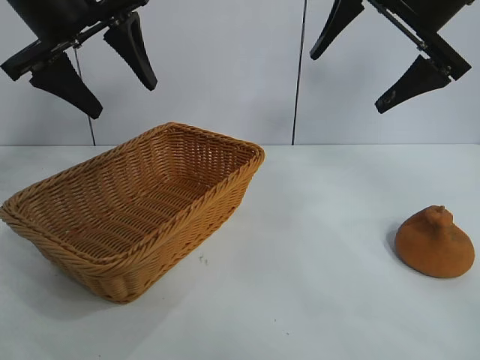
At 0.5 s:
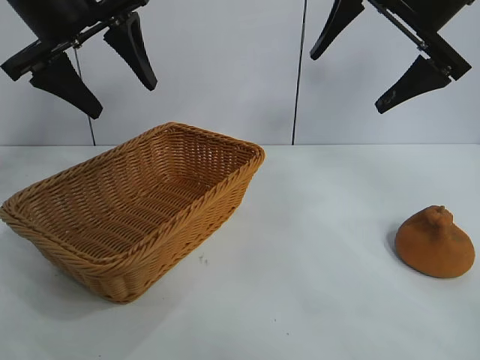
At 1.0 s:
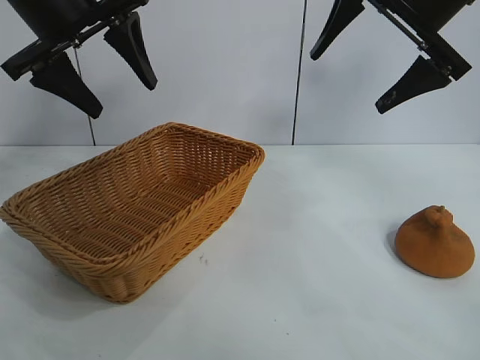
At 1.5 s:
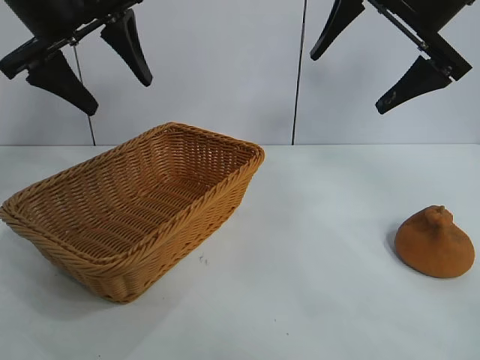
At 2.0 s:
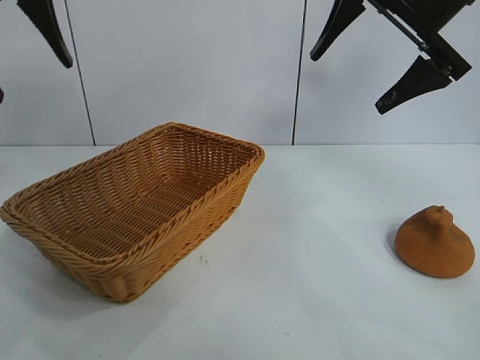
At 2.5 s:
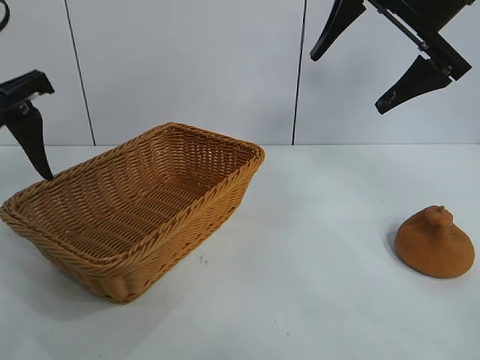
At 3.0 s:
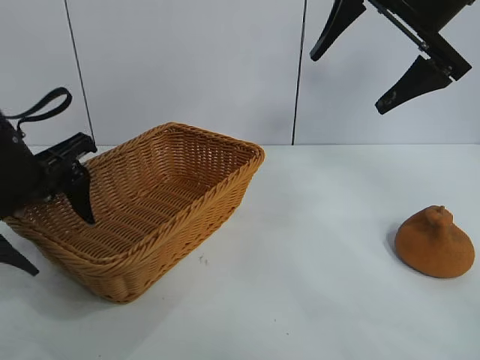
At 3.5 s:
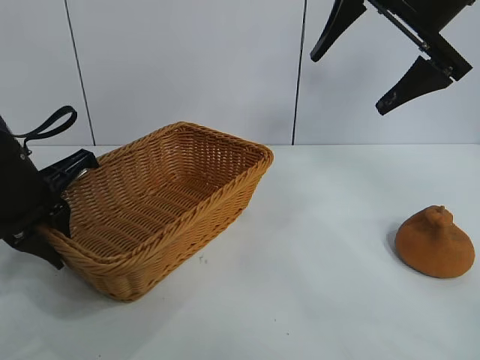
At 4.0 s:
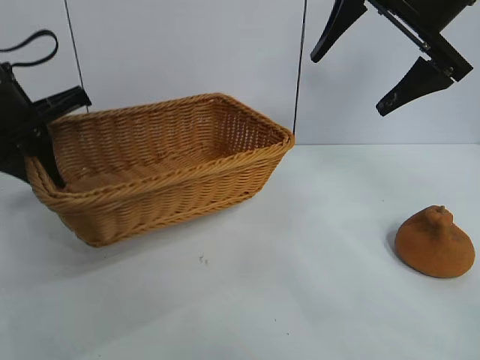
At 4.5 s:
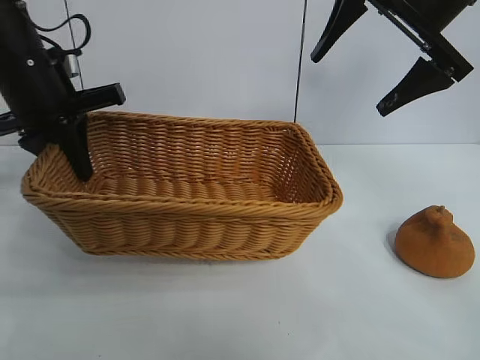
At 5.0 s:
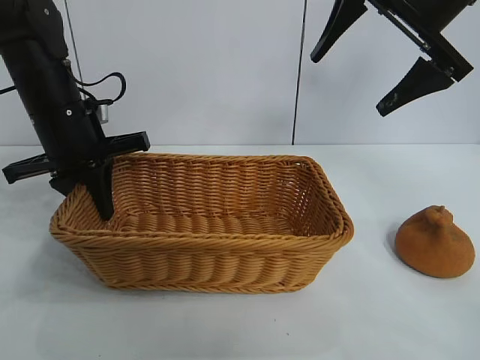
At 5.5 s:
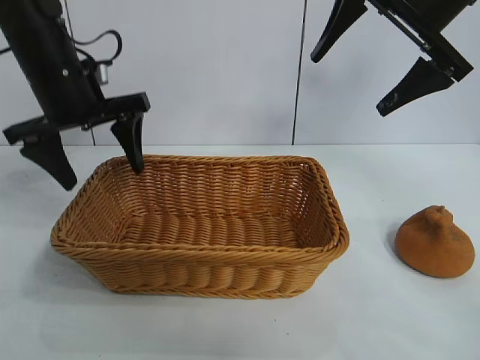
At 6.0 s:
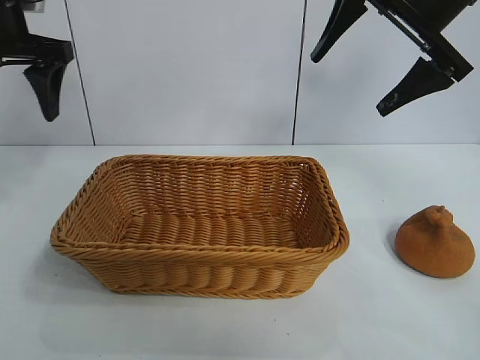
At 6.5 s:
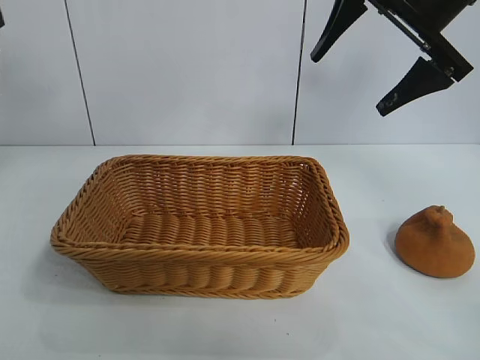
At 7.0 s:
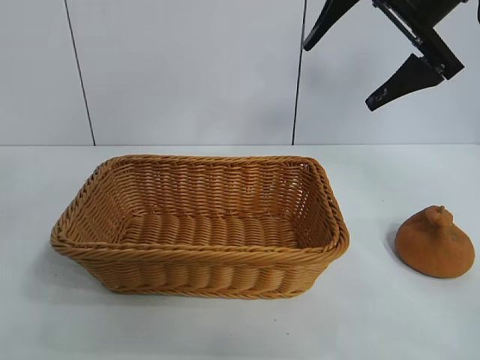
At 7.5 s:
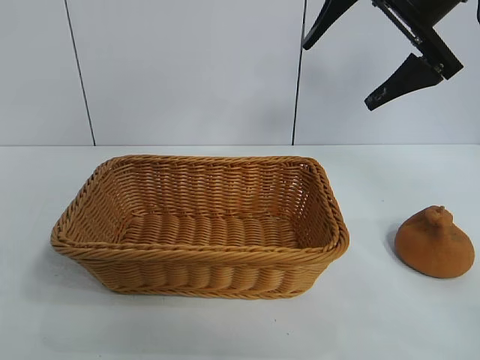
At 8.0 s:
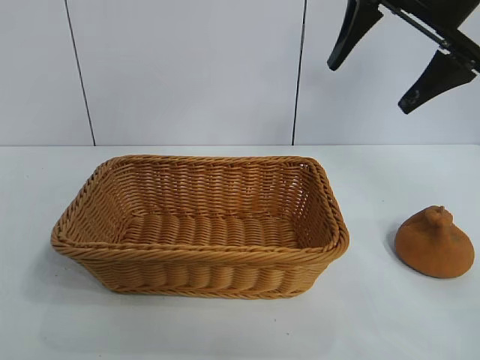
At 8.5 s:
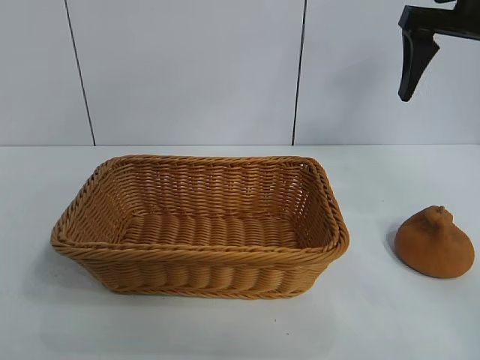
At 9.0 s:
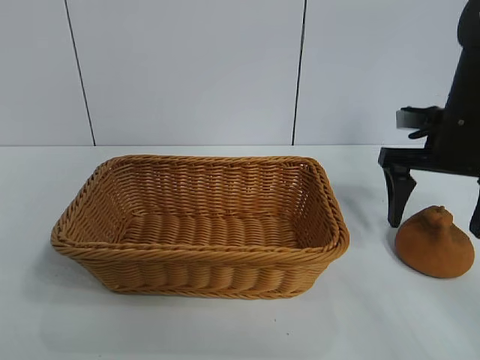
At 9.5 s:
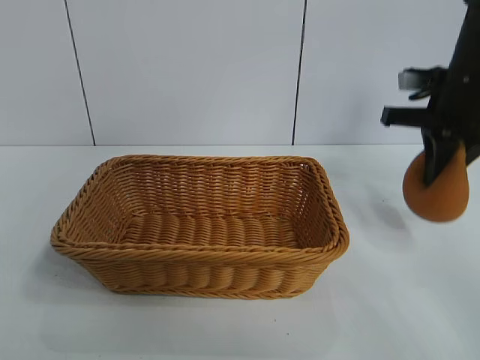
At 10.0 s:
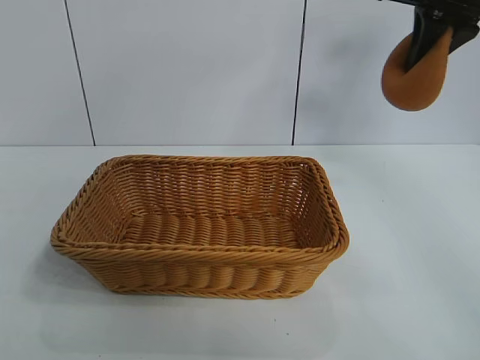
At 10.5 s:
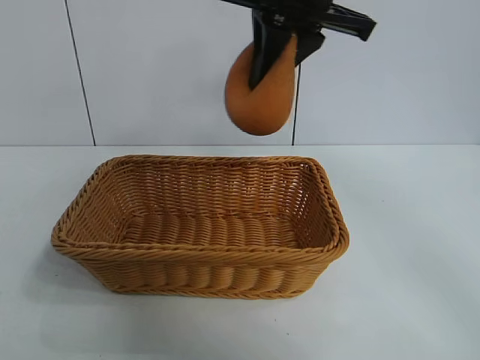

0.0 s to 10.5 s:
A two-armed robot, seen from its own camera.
Task of the whole recording: pick up the orange and put it into the basket.
Step, 1.0 to 3.0 s: Grasp the basket with left gripper.
Step, 4.0 to 5.0 s: Place the basket in the center of view with left gripper.
Step, 5.5 to 9.0 s: Grasp the orange with right gripper.

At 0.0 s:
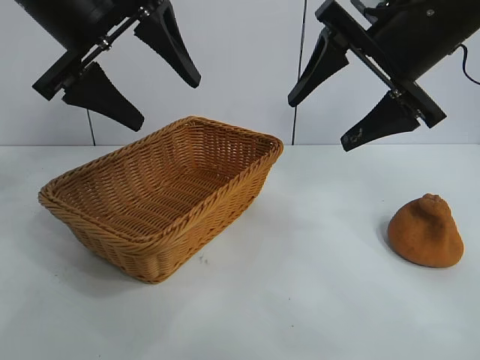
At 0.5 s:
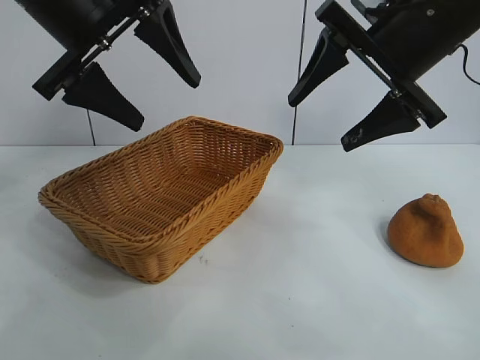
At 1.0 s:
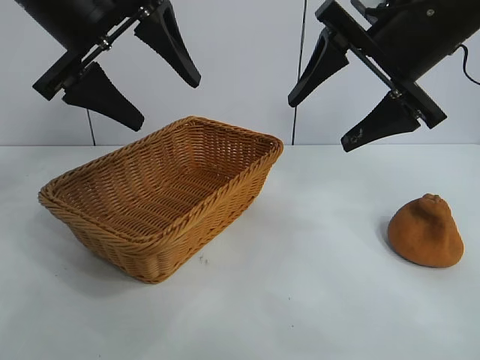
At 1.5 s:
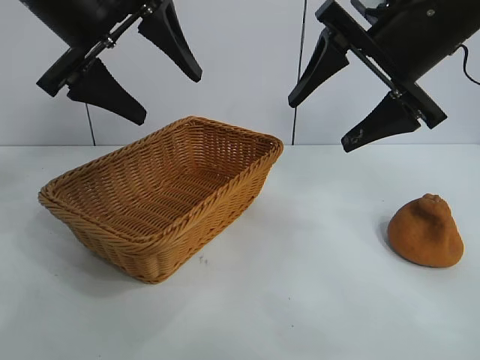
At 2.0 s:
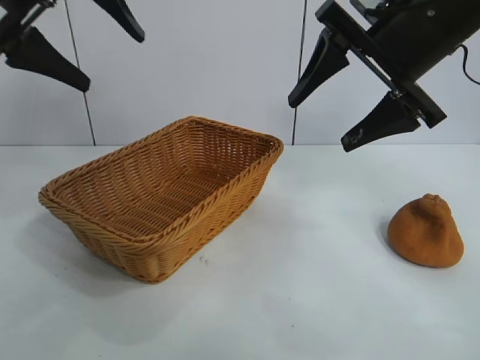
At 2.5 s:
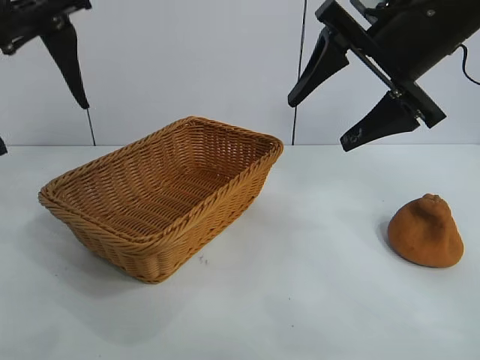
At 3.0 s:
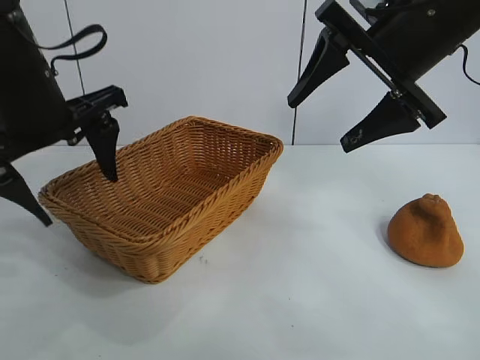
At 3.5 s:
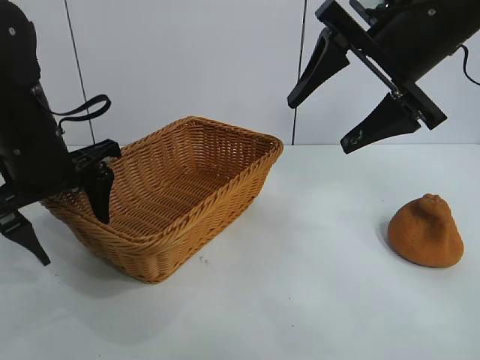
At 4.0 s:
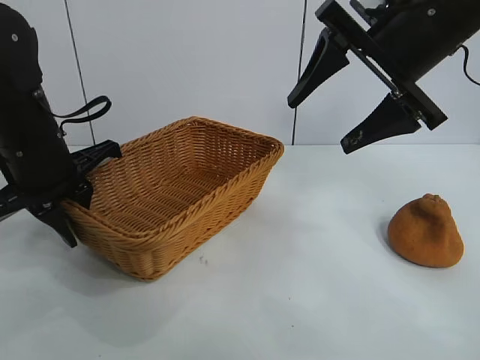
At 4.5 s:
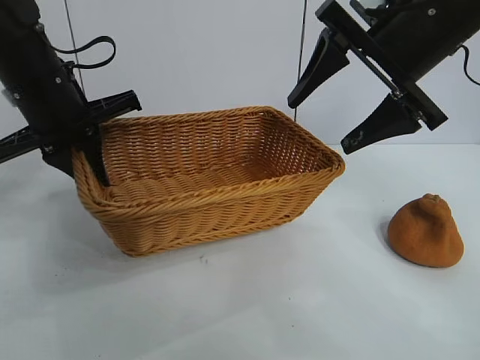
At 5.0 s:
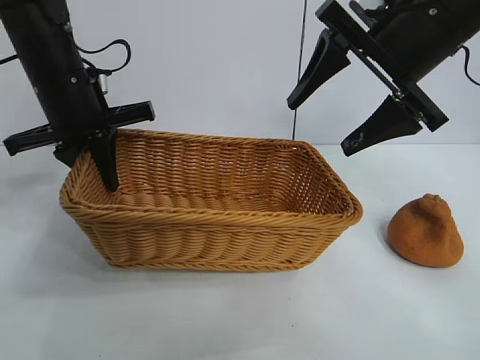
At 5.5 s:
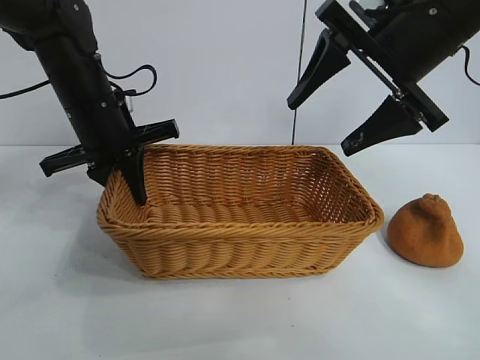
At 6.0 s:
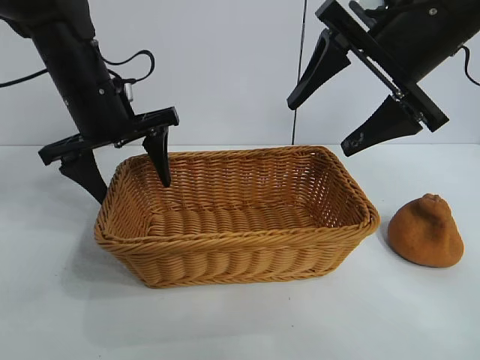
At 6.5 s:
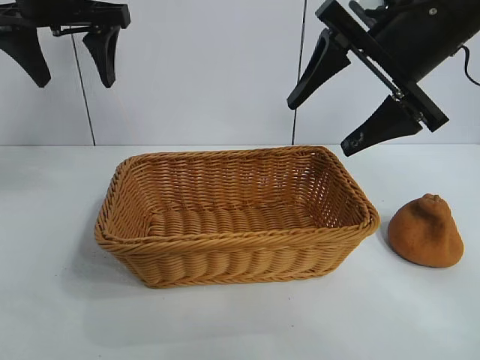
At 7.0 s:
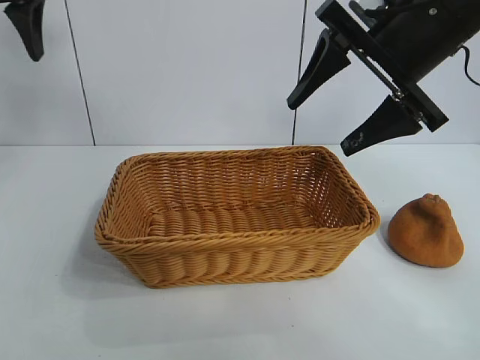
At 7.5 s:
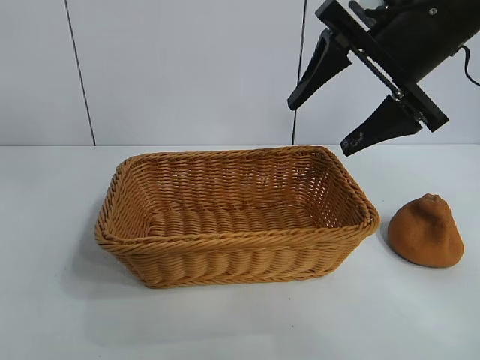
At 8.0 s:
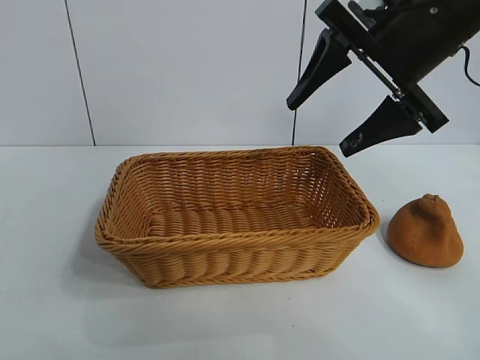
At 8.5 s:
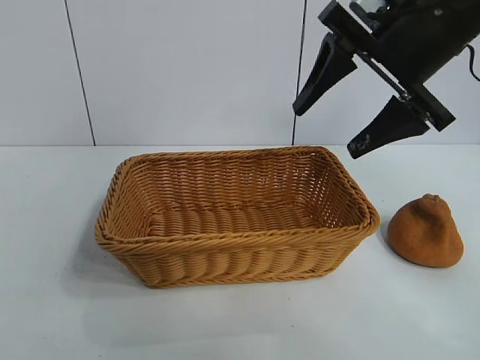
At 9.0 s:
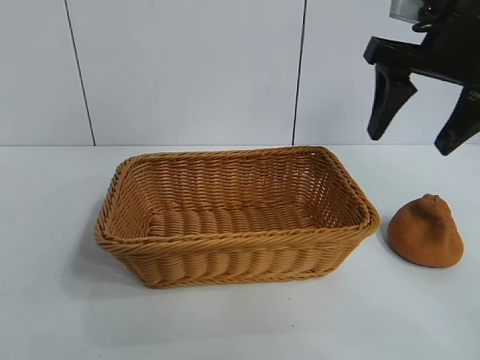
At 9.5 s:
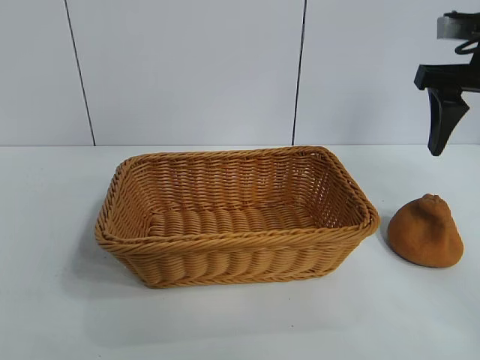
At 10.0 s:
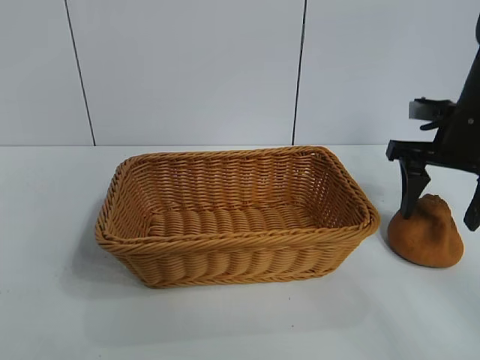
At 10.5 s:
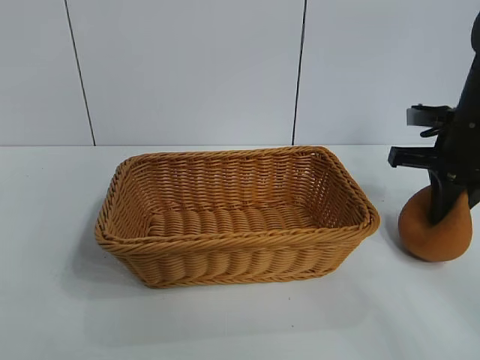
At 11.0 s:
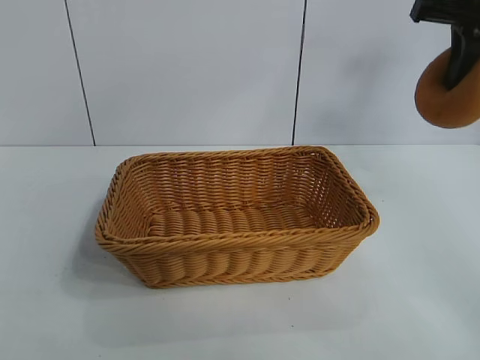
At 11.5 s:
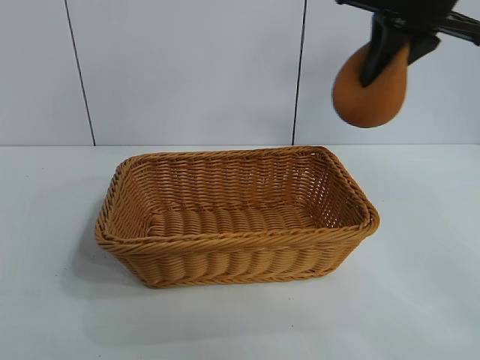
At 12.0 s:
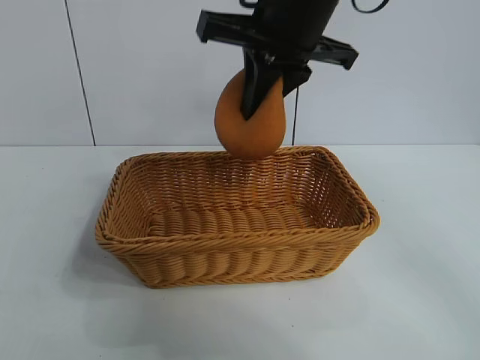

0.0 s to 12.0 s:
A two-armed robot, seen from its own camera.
Task of the whole recording: pick up the orange and put it into the basket.
Step, 1.0 to 3.5 s: Grasp the basket with left gripper.
Step, 4.5 to 5.5 s: Place the basket in the center of view with left gripper.
Step, 6.0 to 10.0 s: Grasp the orange with right gripper.

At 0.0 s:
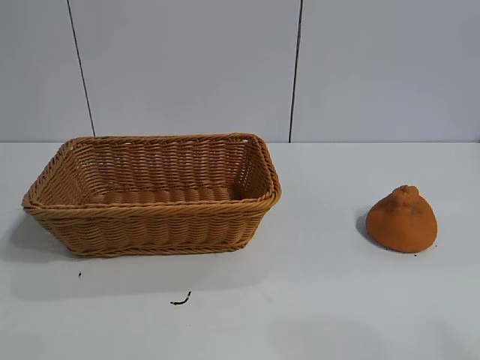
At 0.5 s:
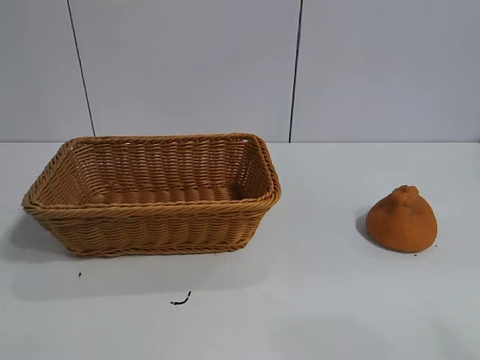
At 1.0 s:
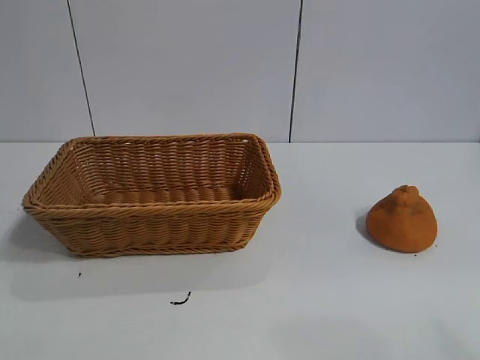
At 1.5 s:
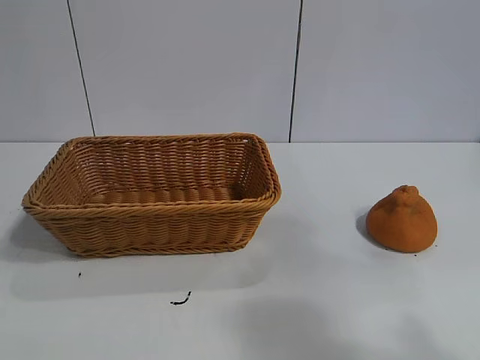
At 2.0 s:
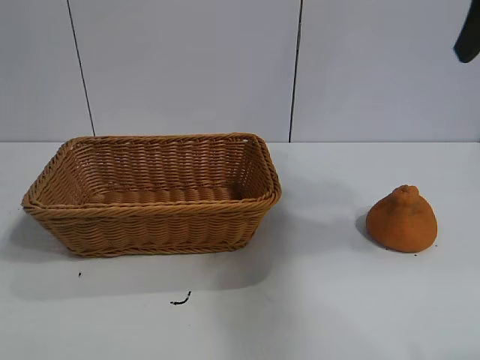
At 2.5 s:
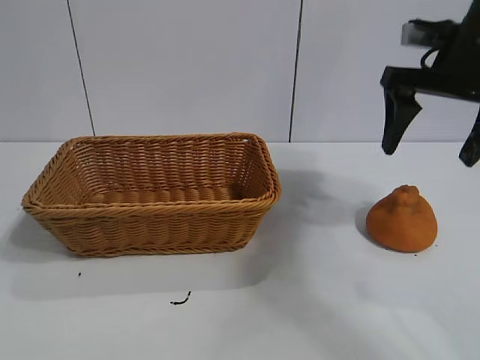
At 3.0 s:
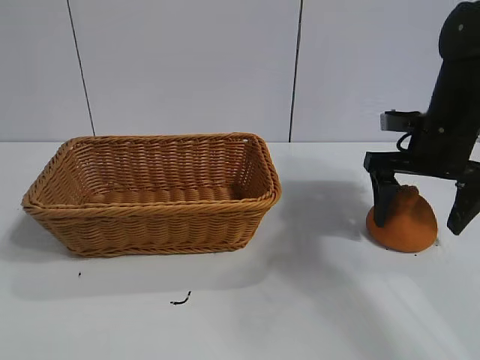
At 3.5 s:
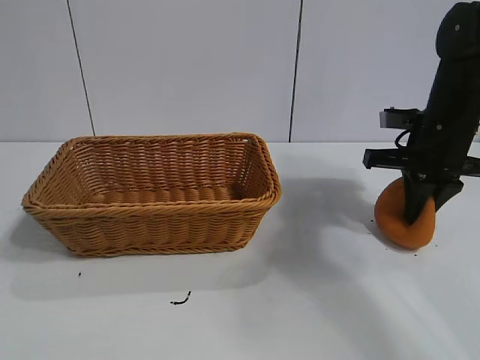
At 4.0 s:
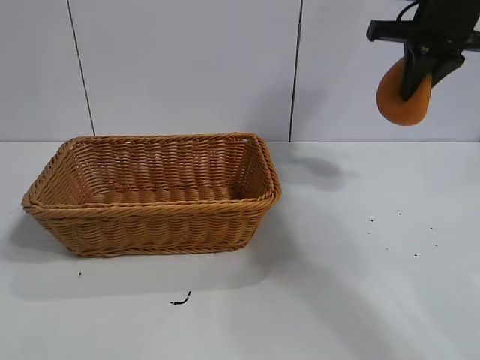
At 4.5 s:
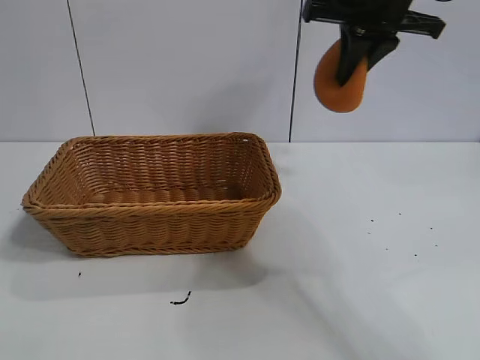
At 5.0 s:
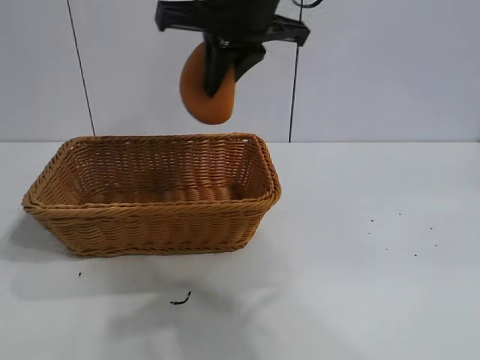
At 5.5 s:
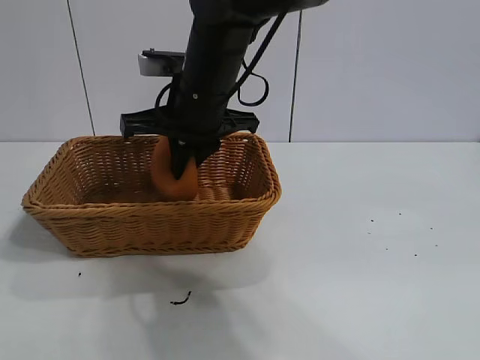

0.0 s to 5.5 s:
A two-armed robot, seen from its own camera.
Task of the whole recording: pick up the orange and put it into the basket.
Step, 1.0 to 3.0 s: Grasp the orange with right gripper.
